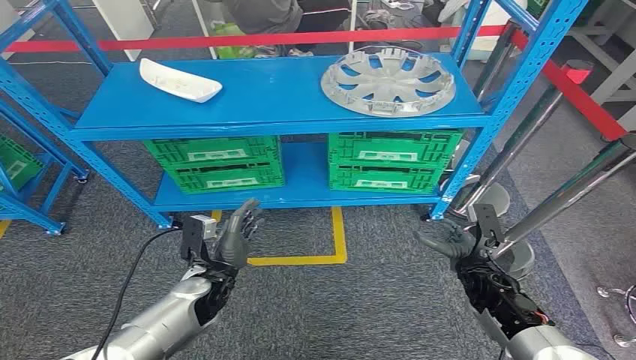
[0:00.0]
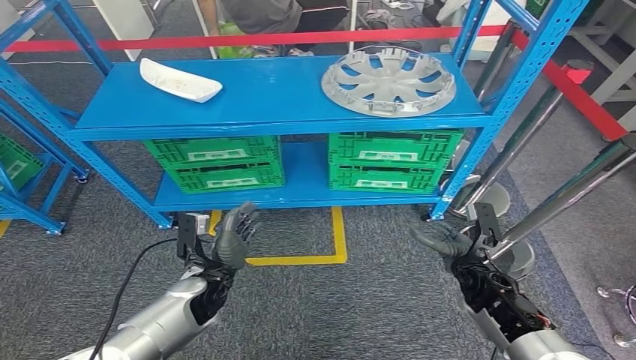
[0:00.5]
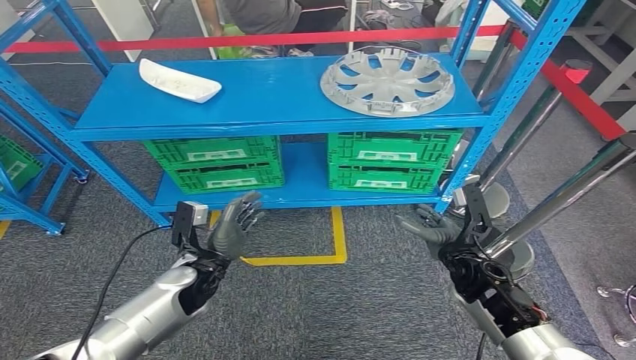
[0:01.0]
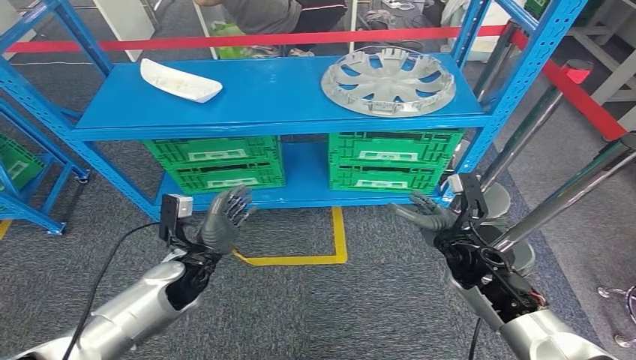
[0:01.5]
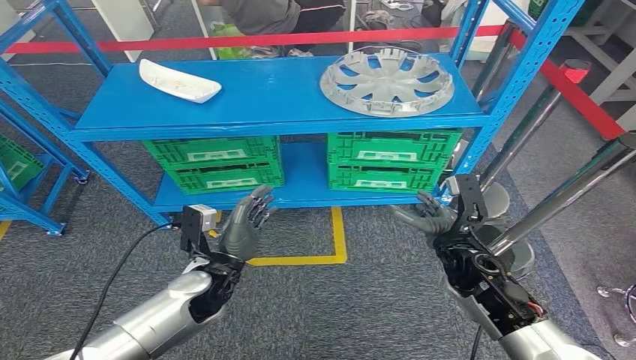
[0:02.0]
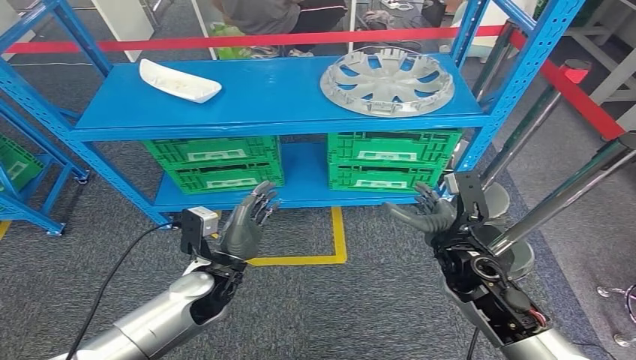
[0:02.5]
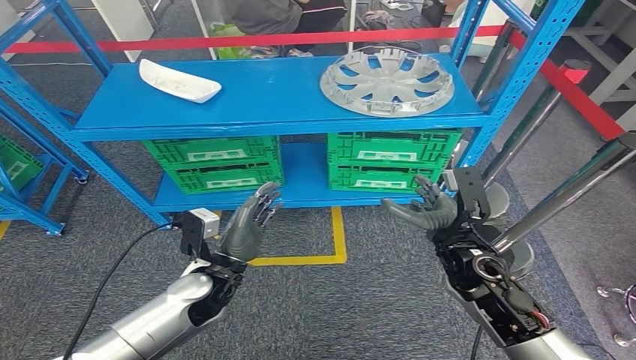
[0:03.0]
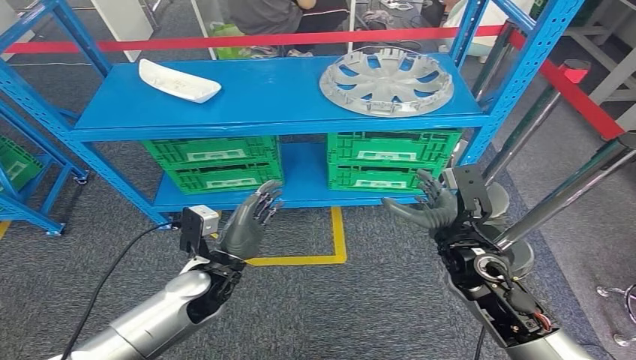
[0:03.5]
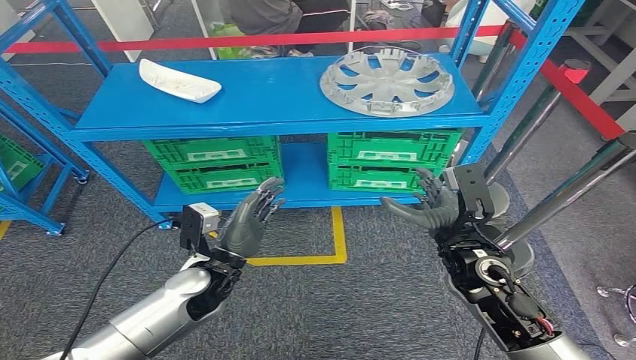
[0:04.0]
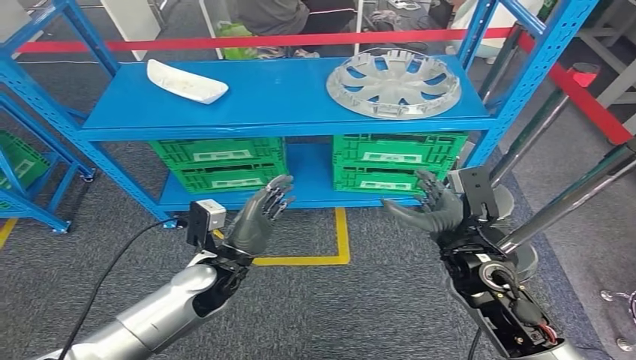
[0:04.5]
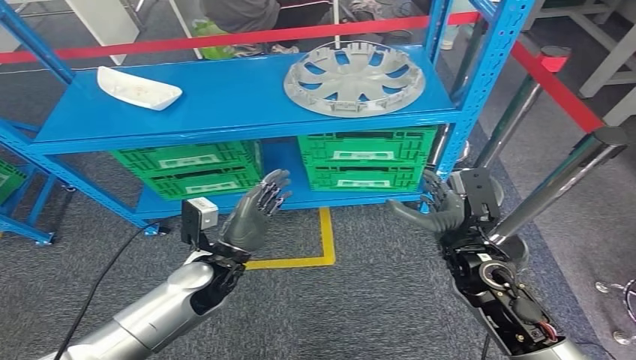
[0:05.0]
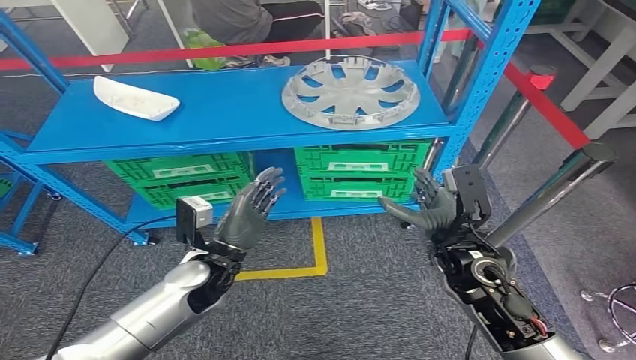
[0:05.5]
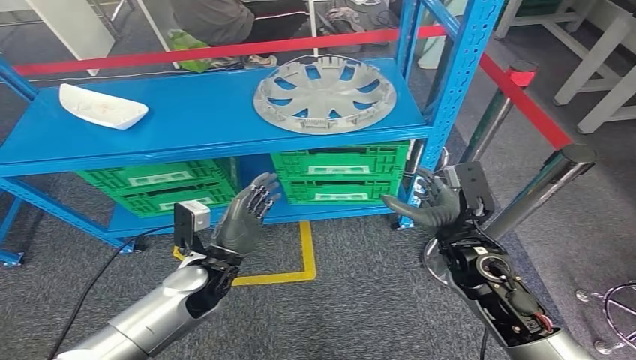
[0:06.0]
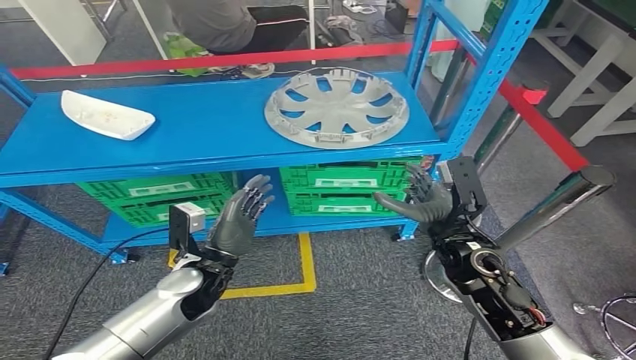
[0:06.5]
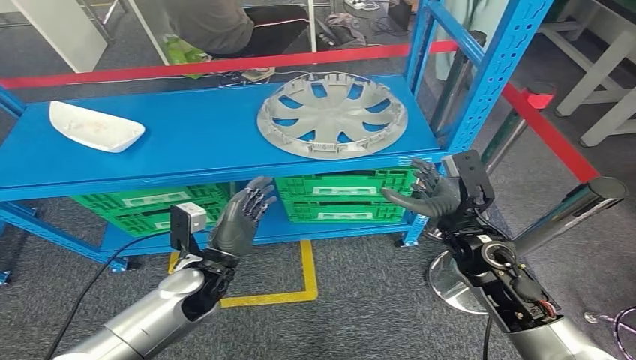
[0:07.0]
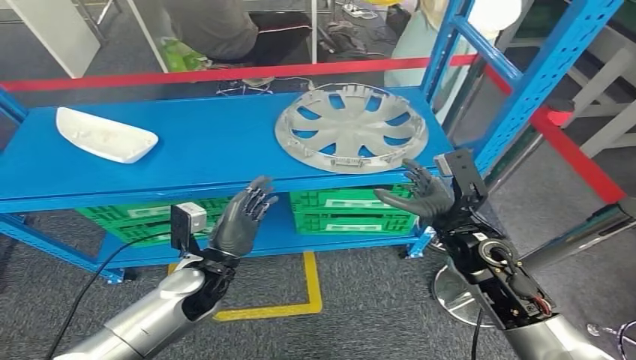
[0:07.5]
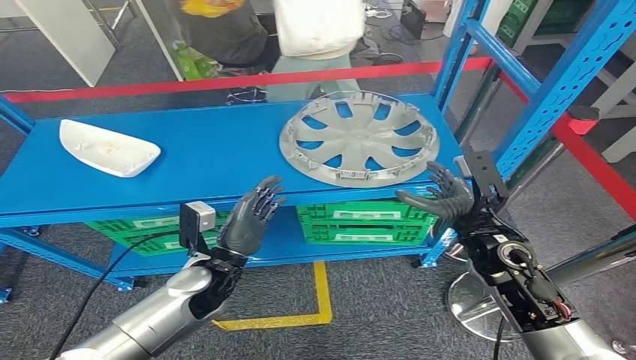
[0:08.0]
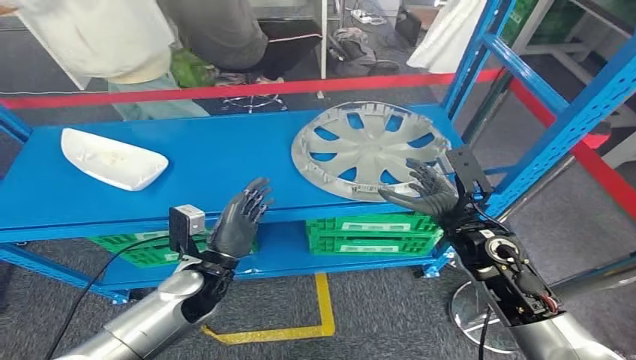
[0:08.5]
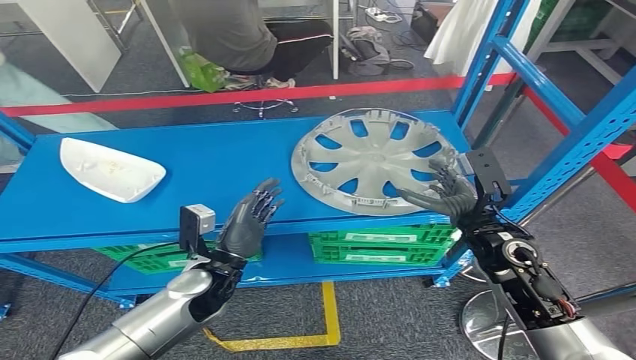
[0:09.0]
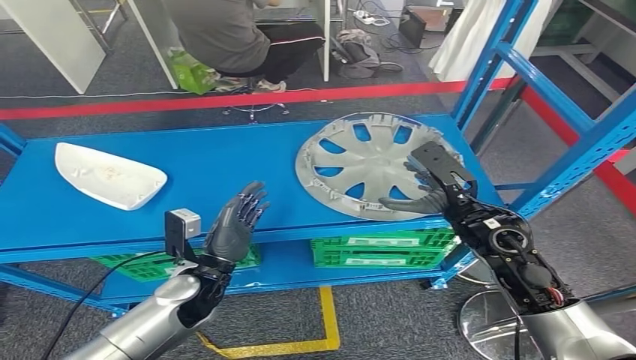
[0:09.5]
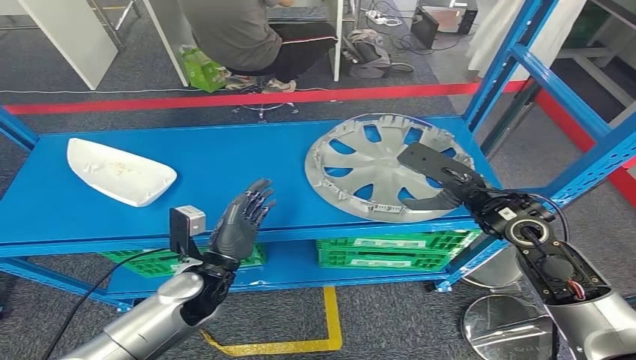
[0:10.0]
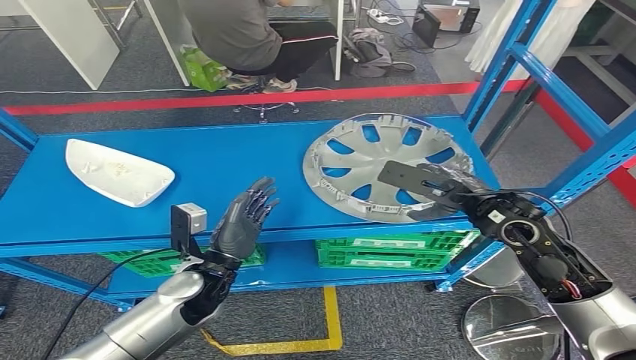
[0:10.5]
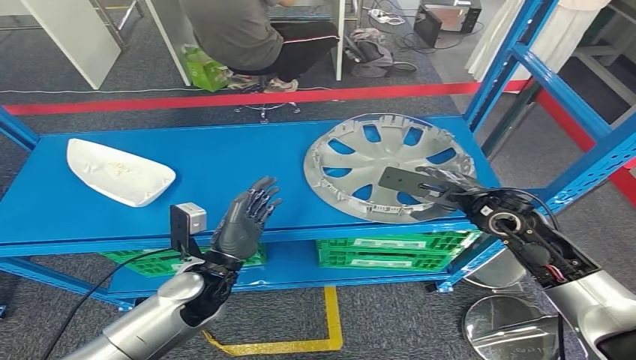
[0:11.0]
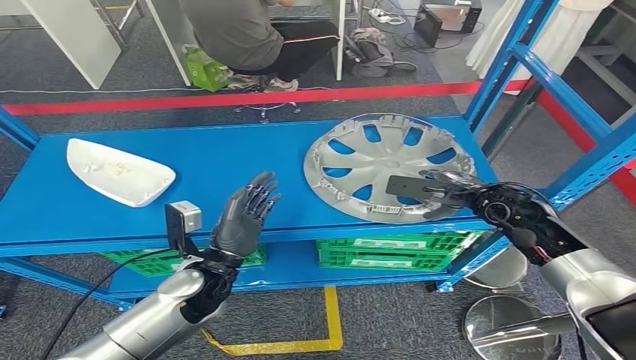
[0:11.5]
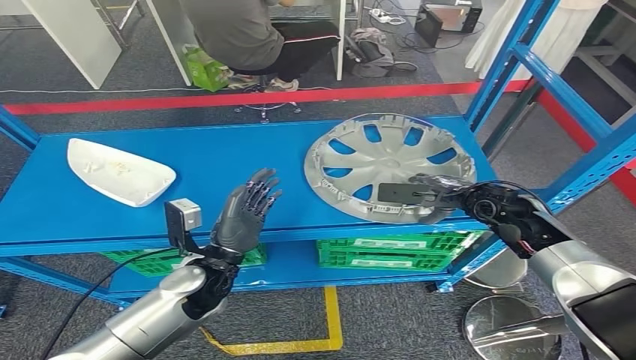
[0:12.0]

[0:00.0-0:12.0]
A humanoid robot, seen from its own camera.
0:02.0 to 0:04.0: The right hand ends up approximately 5 cm from where it was.
0:10.0 to 0:12.0: The right hand shifts roughly 10 cm downward and forward.

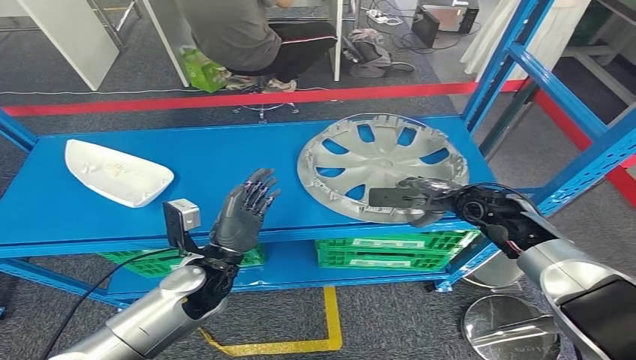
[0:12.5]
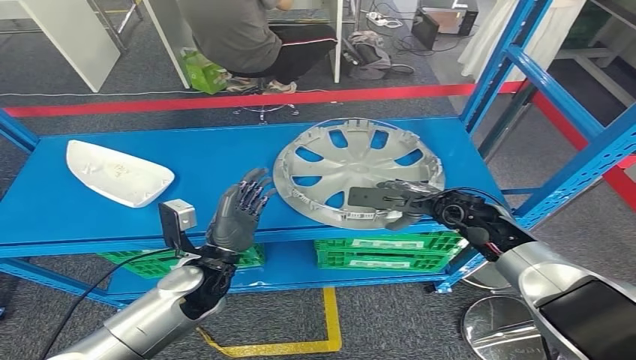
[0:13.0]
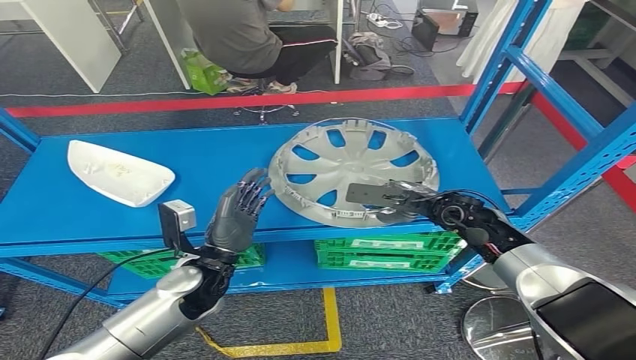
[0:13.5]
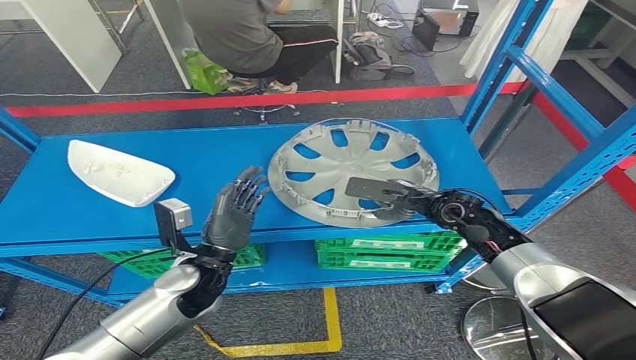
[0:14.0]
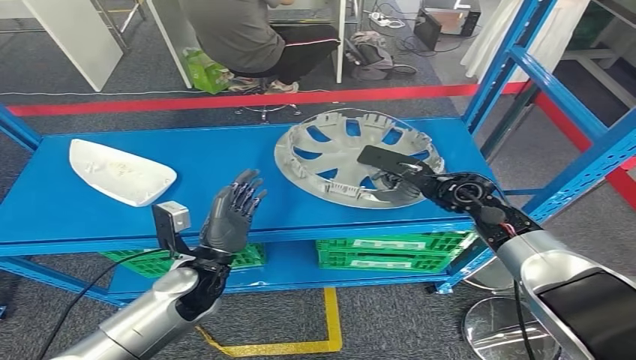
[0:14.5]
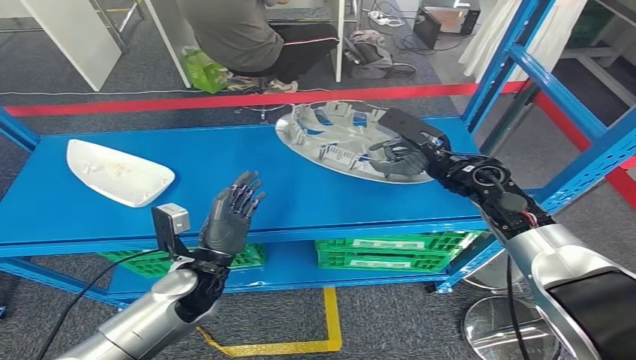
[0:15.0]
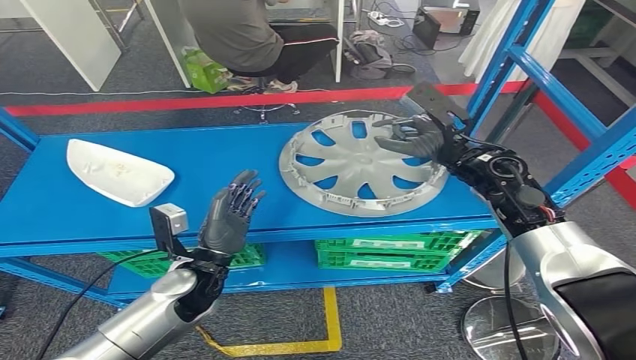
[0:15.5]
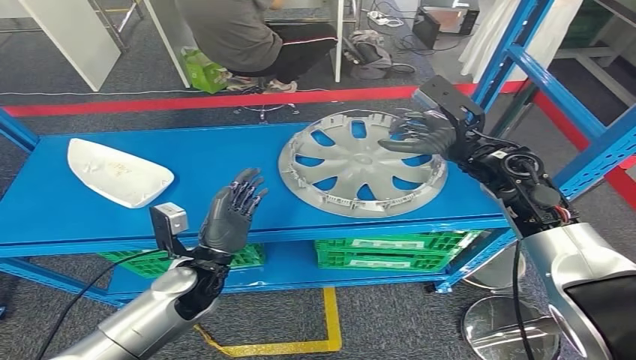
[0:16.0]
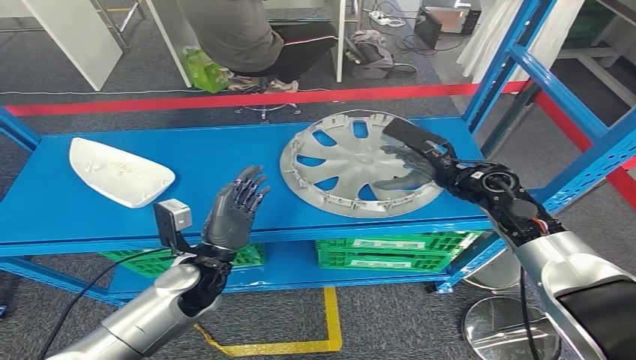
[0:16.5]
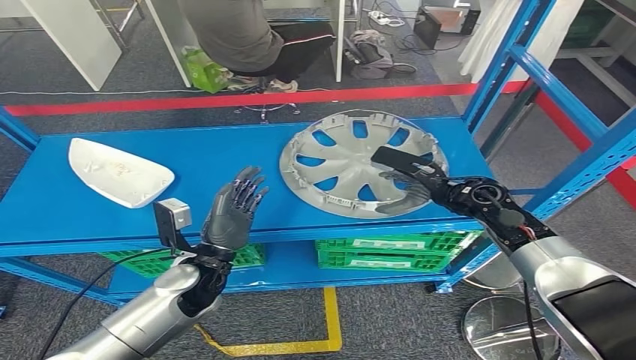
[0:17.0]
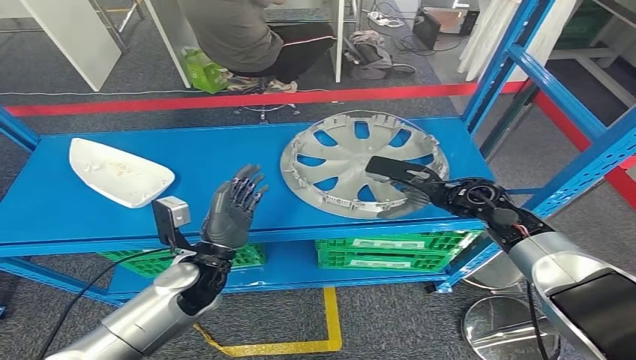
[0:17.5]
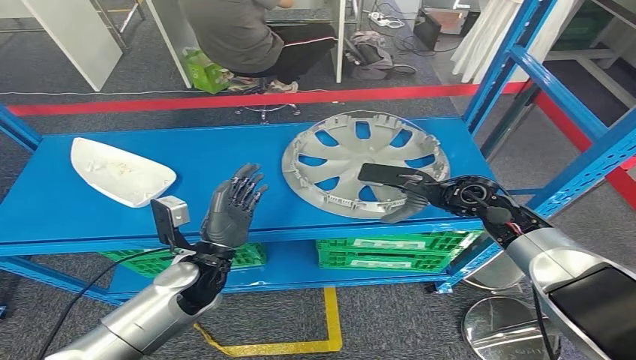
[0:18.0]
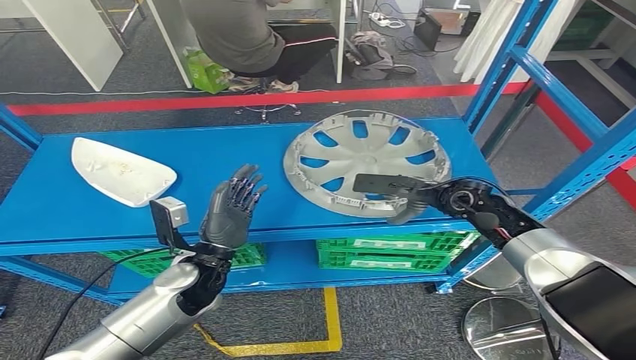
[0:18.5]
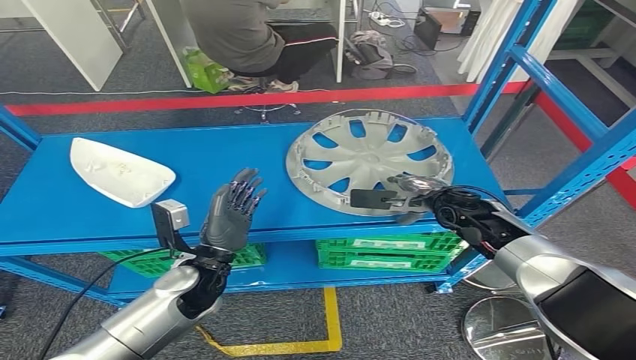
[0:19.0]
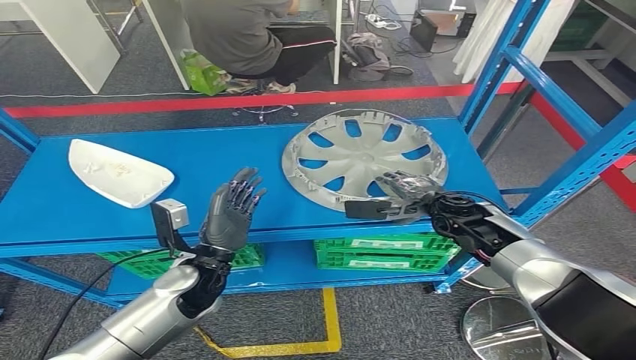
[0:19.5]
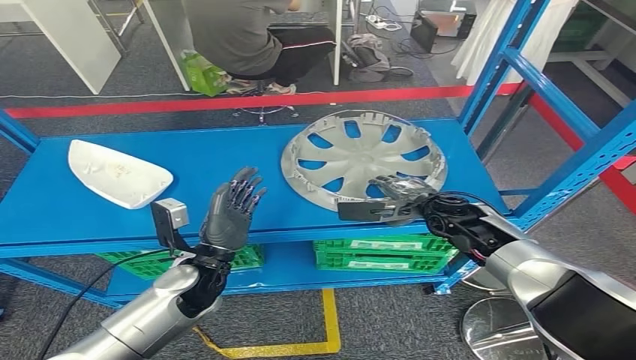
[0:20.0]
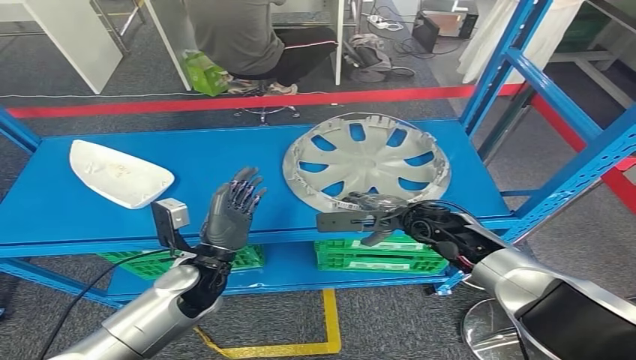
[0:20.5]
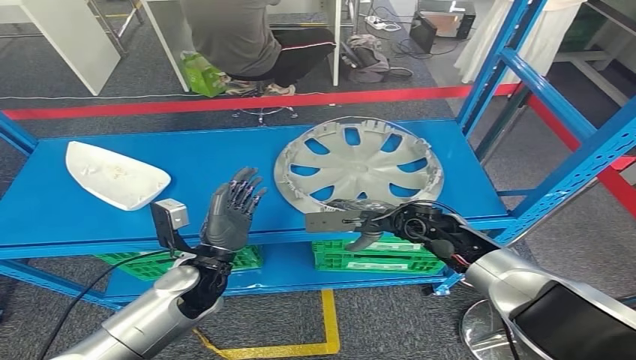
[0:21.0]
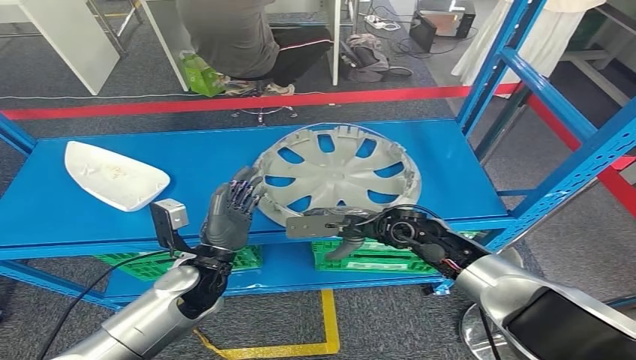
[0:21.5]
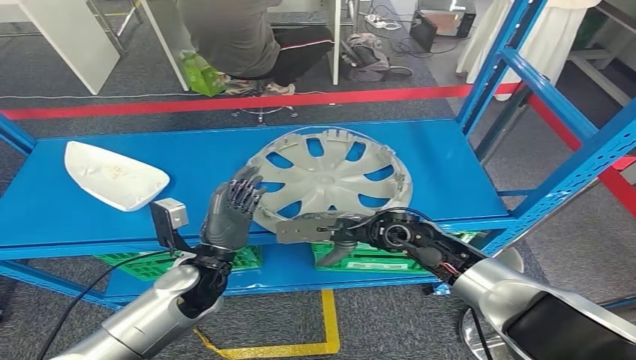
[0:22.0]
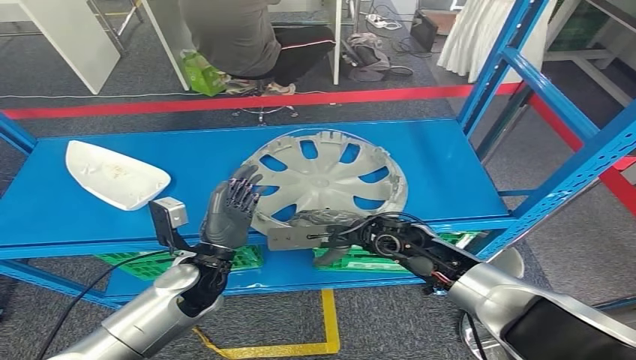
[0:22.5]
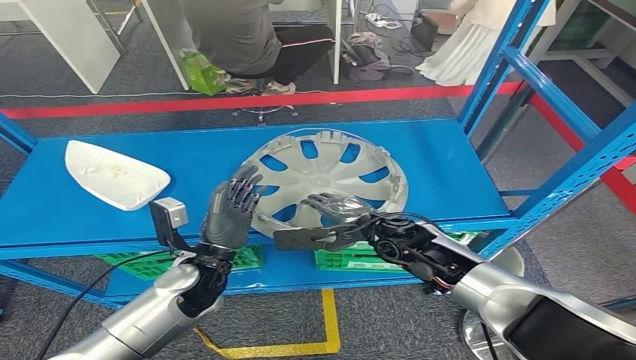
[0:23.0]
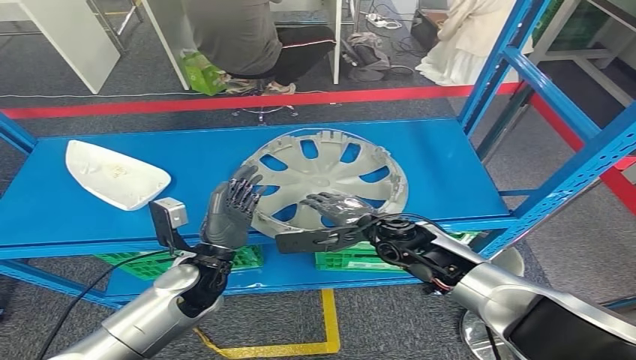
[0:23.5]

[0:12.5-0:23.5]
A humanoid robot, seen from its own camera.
0:14.5 to 0:16.0: The right hand is displaced upward by roughly 10 cm.
0:16.0 to 0:18.0: The right hand goes approximately 10 cm downward.
0:20.0 to 0:21.5: The right hand moves to the left, approximately 10 cm.
